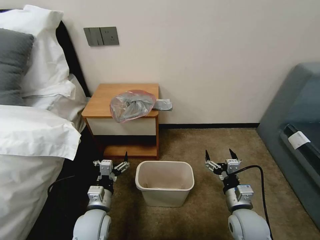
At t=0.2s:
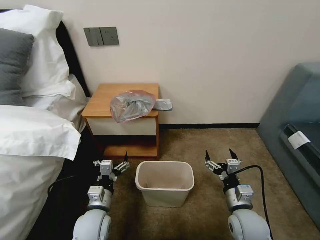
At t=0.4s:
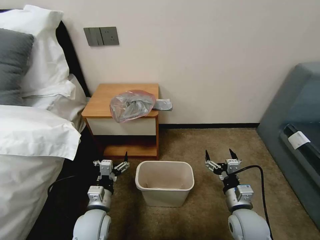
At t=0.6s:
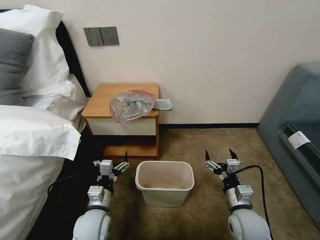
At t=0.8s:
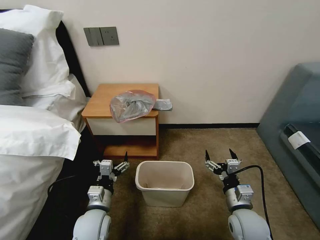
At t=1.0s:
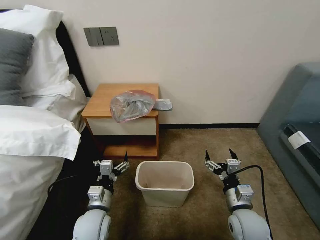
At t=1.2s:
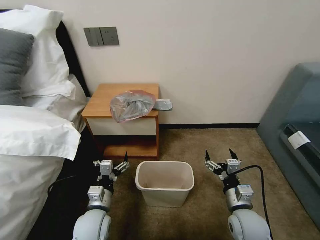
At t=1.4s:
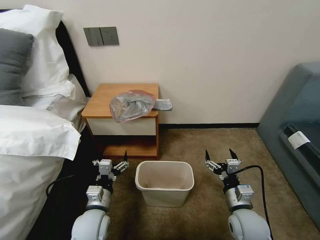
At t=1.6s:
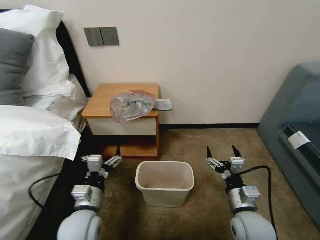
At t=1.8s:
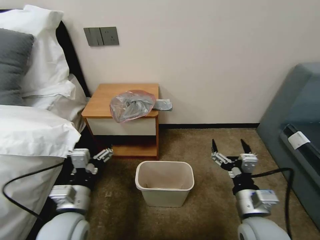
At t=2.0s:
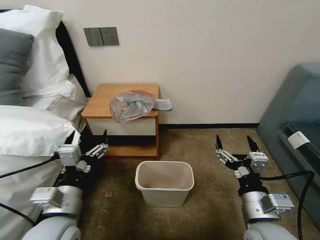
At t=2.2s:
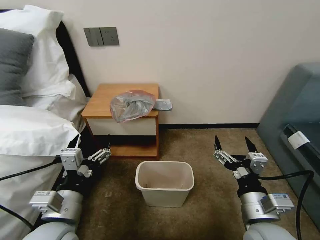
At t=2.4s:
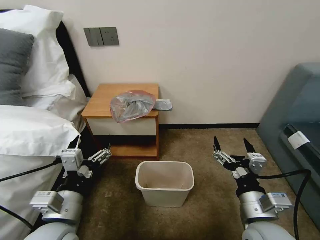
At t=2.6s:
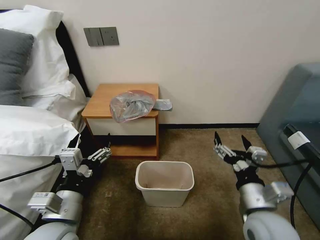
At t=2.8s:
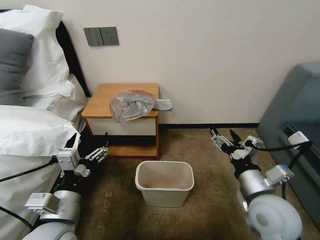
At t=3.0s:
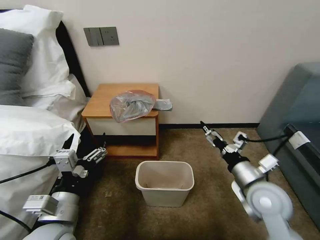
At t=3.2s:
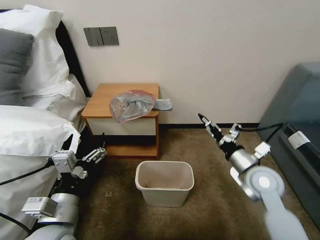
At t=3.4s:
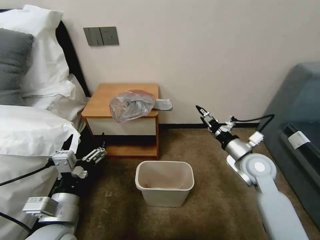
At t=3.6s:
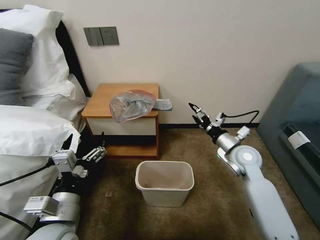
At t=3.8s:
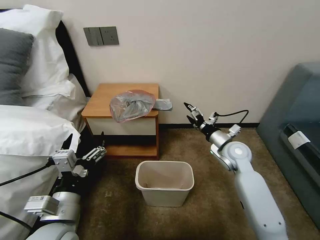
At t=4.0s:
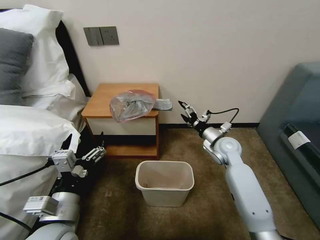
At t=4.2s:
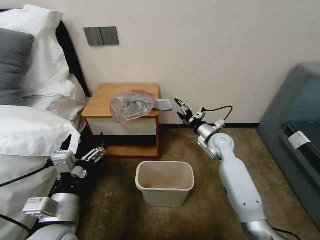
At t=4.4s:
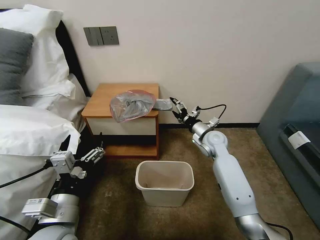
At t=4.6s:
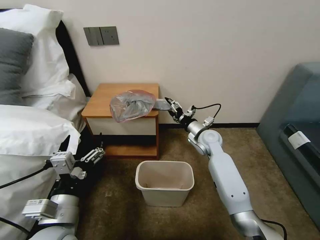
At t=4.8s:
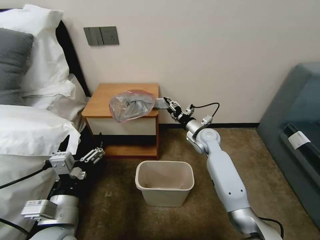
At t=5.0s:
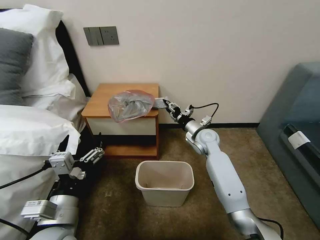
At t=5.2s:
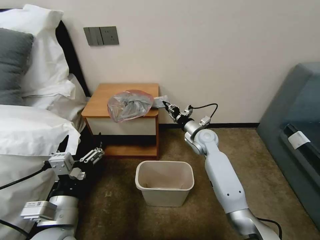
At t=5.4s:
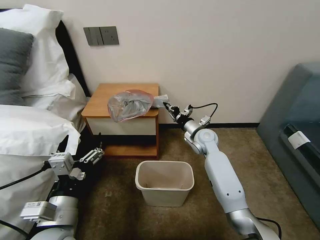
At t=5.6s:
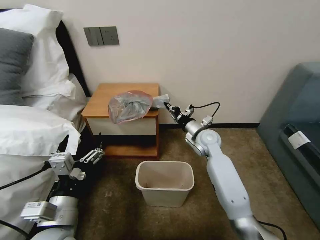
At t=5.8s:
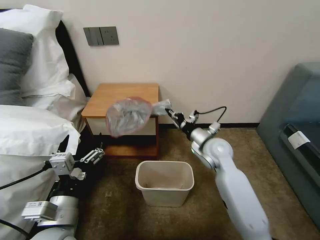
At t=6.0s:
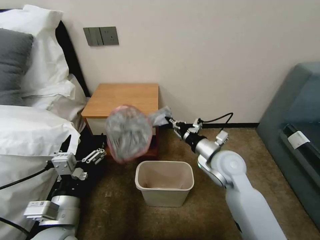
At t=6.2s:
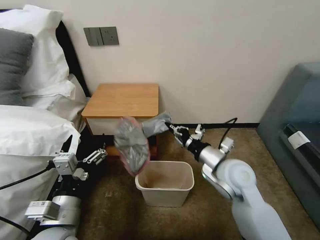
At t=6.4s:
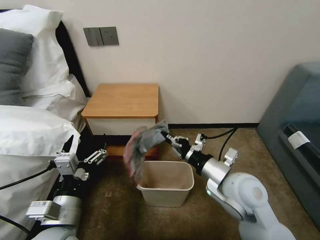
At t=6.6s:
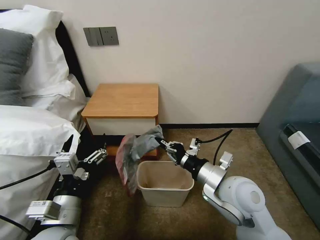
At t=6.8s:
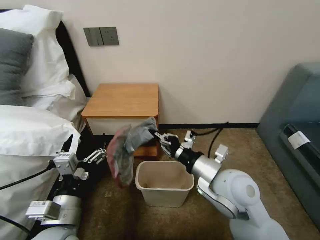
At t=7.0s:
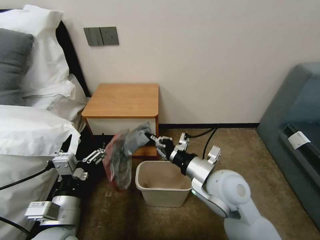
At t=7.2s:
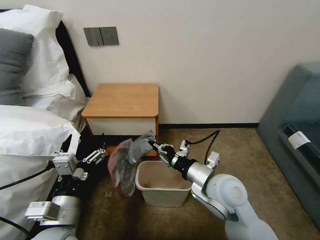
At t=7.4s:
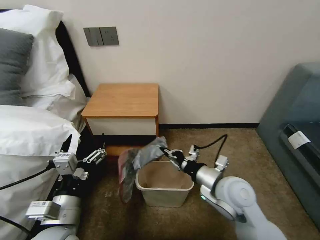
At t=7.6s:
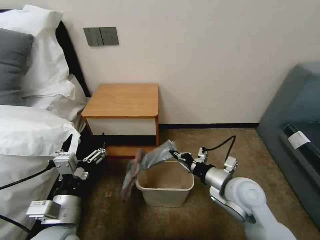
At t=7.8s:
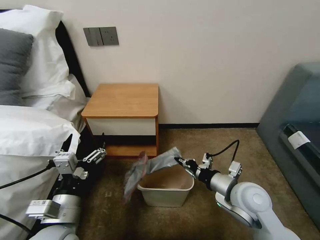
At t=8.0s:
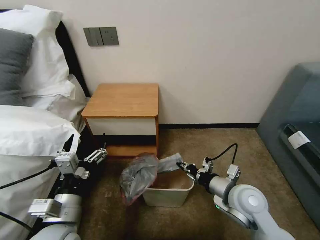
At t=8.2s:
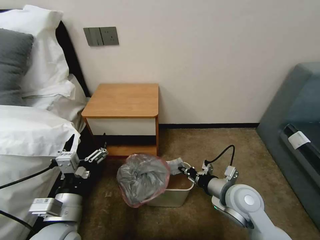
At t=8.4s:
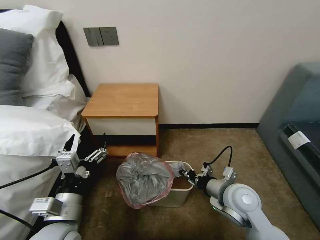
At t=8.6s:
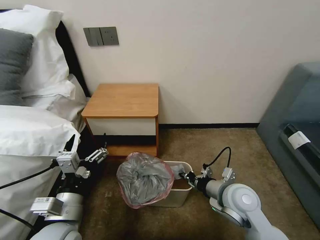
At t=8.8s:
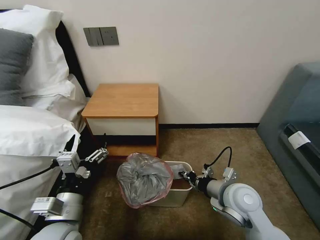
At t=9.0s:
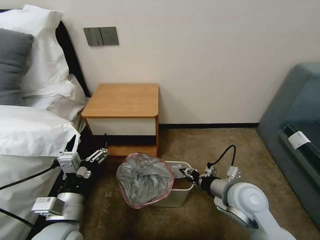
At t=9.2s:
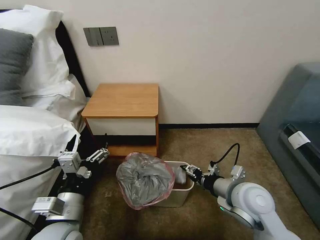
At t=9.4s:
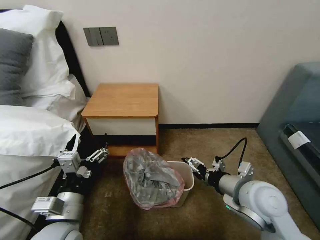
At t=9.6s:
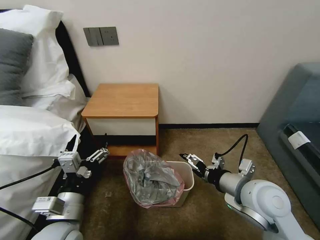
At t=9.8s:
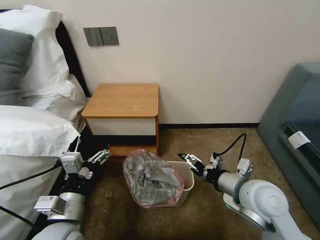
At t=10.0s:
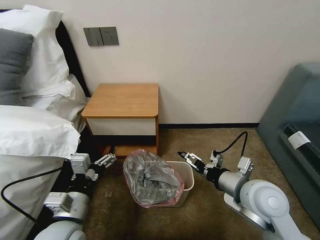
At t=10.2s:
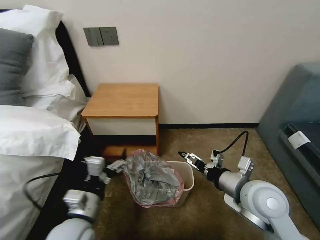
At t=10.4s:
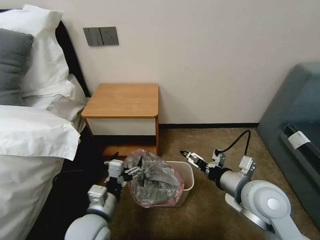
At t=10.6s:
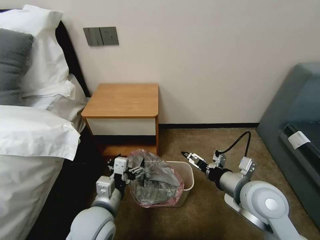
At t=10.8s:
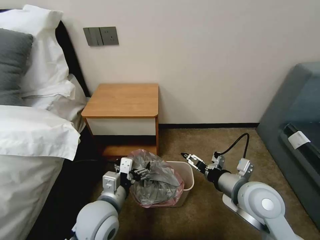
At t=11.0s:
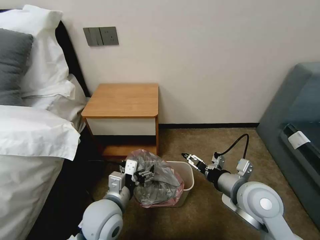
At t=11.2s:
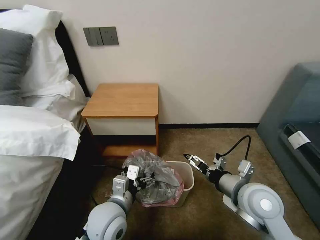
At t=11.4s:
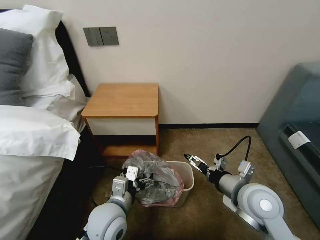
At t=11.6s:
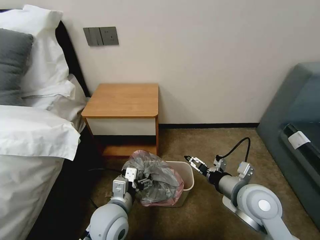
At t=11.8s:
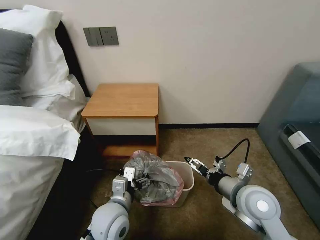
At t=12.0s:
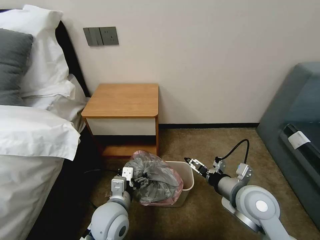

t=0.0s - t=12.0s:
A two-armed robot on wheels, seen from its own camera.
Task of the whole recording: Pick up the garbage bag from the table and place it over the trash can.
t=1.6s - t=3.0s: The right gripper shifts some 10 cm upward and forward. Meanwhile the left gripper shifts some 10 cm upward and backward.
t=3.0s - t=4.4s: The right gripper travels forward by about 20 cm.
t=4.4s - t=6.0s: The right gripper shifts approximately 15 cm backward and upward, and closes its fingers.
t=6.0s - t=7.6s: The right gripper travels backward by approximately 10 cm.
t=7.6s - t=9.0s: The right gripper opens up.
t=9.0s - t=10.4s: The right gripper travels upward by approximately 5 cm, and opens. Meanwhile the left gripper shifts by some 5 cm.
t=10.4s - t=12.0s: The left gripper moves roughly 5 cm.

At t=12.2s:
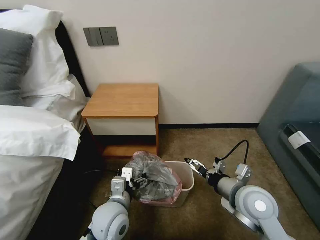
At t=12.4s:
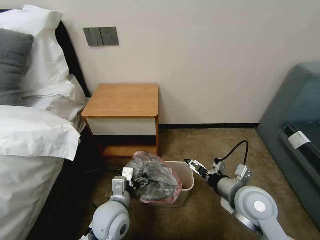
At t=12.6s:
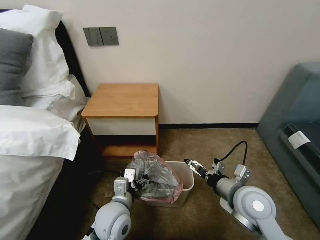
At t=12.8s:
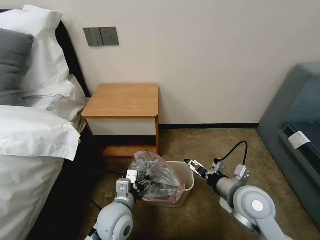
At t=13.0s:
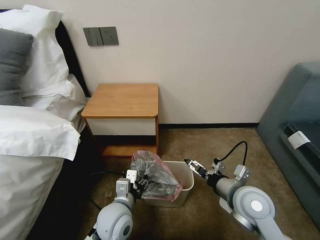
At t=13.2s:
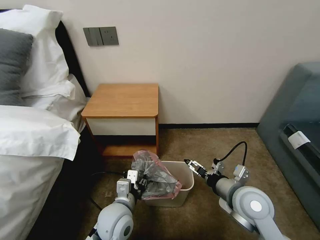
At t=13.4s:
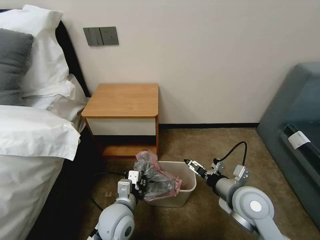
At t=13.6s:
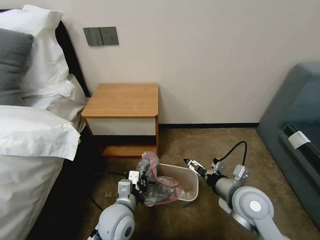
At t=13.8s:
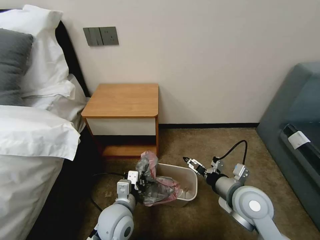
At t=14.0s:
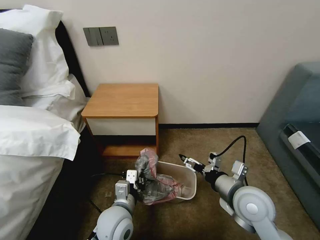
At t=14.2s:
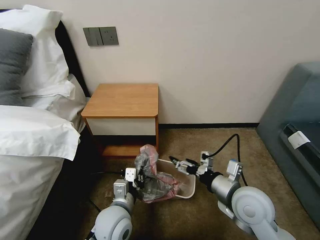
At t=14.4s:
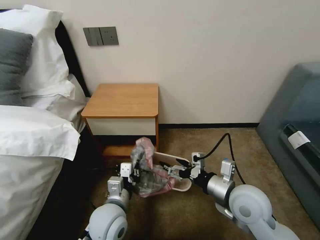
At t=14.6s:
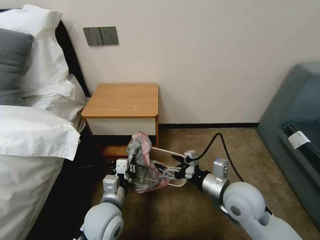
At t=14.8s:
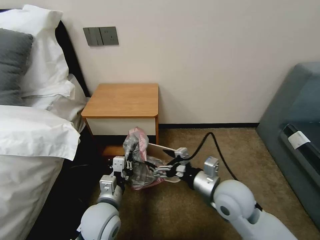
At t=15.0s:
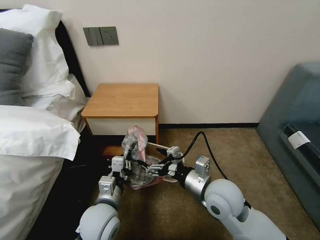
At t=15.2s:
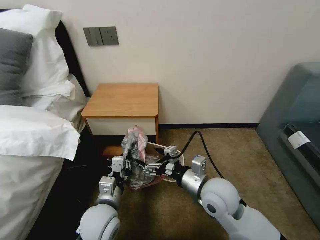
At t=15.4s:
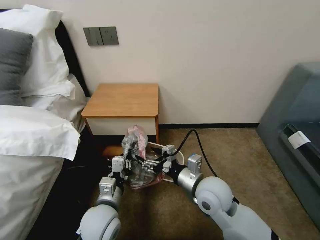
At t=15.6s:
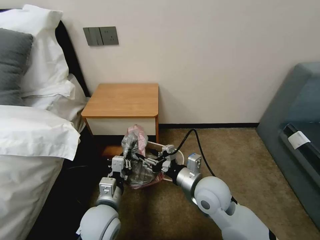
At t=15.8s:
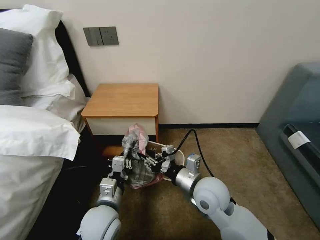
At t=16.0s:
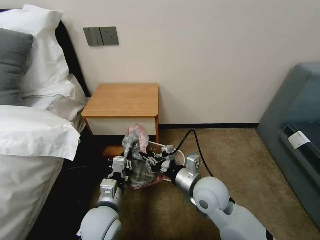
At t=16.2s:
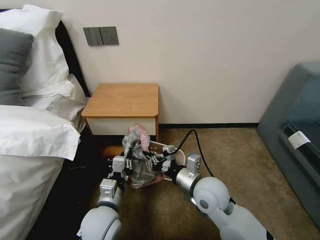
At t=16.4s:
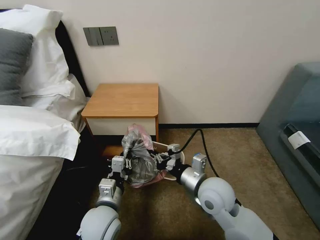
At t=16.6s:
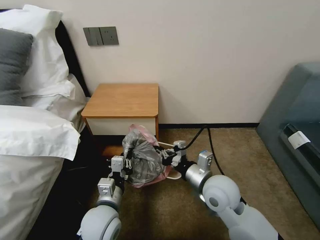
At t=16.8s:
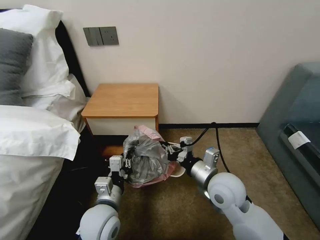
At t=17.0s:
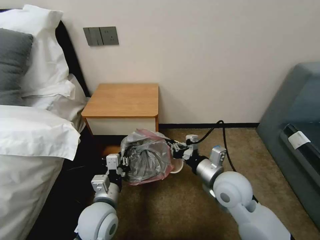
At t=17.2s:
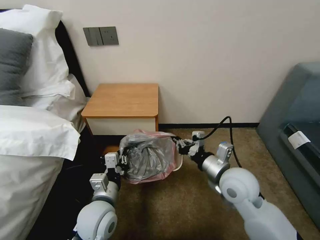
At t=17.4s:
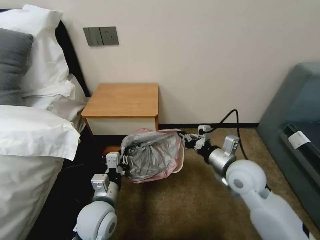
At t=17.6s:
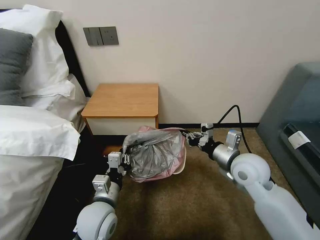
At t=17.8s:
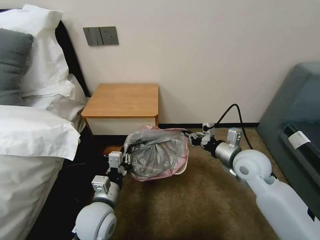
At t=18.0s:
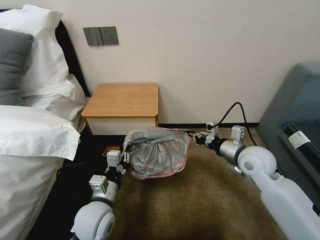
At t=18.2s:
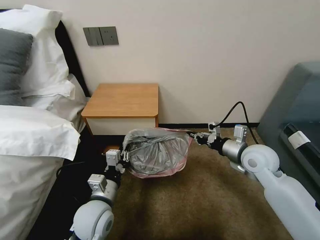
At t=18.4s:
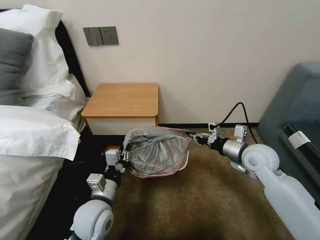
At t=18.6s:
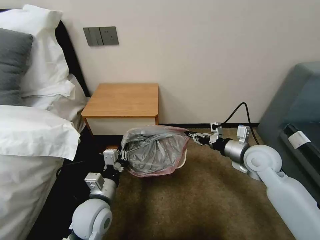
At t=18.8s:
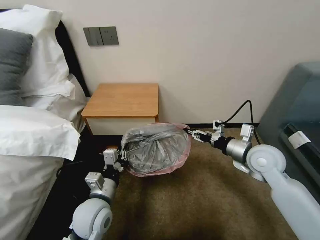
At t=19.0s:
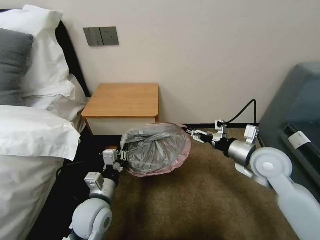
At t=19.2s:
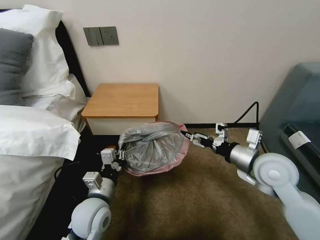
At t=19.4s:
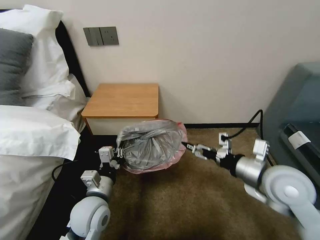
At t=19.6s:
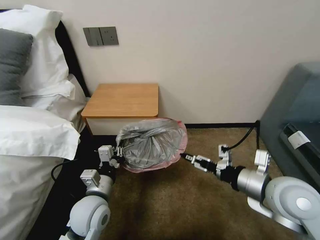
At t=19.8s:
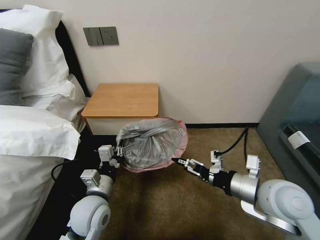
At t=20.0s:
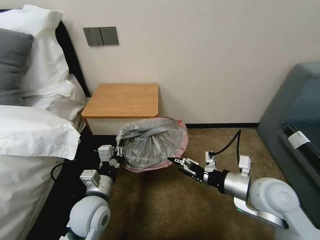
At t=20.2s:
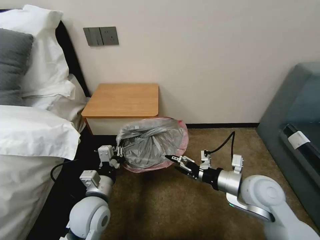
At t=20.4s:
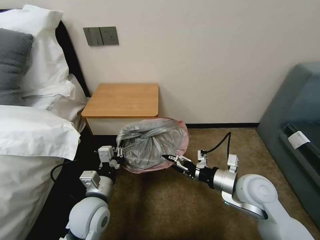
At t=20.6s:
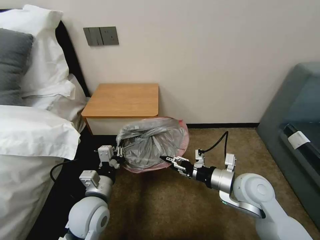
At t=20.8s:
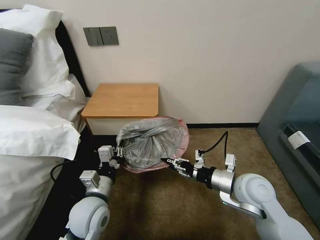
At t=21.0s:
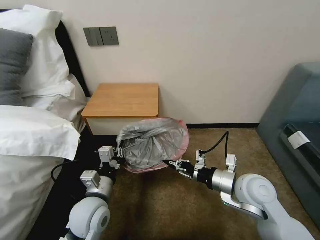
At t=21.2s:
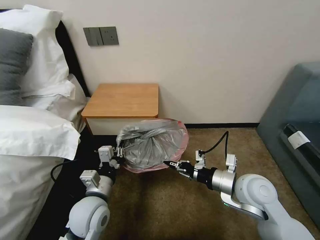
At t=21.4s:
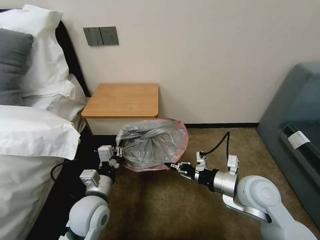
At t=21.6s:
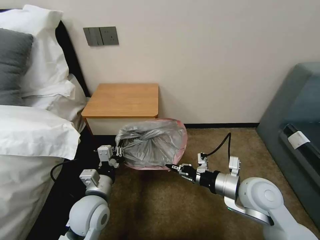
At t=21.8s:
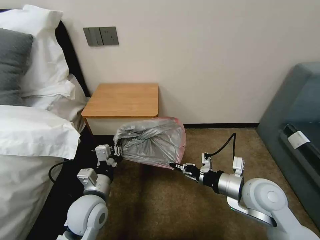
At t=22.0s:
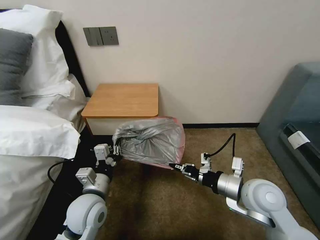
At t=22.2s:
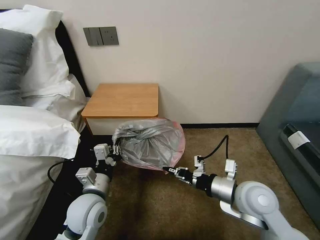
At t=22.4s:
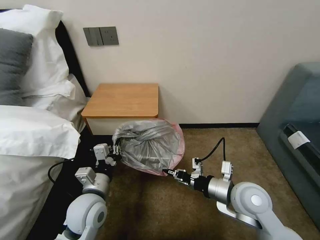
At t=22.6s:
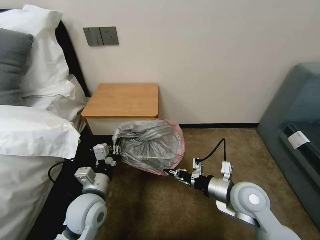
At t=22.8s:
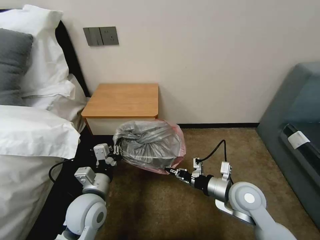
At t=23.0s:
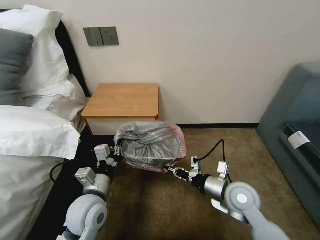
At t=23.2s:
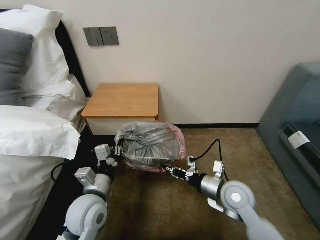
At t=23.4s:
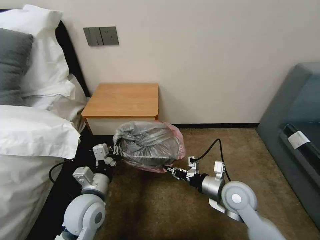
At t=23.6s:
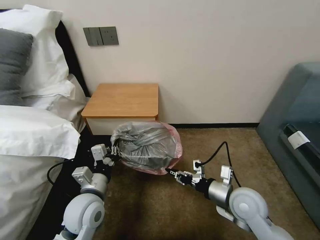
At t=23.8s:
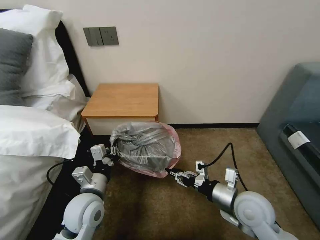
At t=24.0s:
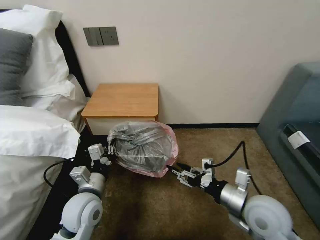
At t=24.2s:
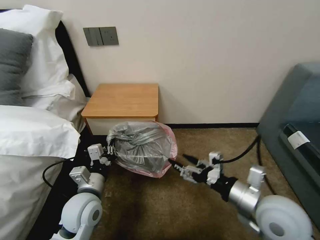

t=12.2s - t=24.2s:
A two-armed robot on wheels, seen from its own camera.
Task of the whole recording: Pick up the garbage bag from the table and place it over the trash can.
t=12.2s - t=13.8s: The left gripper closes its fingers.
t=13.8s - t=15.2s: The right gripper heads to the left, covering approximately 10 cm.
t=15.2s - t=16.6s: The right gripper closes its fingers.
t=16.6s - t=18.2s: The right gripper shifts about 15 cm to the right and forward.
t=18.2s - t=19.8s: The right gripper is displaced backward by about 15 cm, and opens up.
t=19.8s - t=21.2s: The right gripper moves some 5 cm, and closes its fingers.
t=21.2s - t=22.6s: The grippers stay close to where they were, moving slightly.
t=22.6s - t=24.2s: The right gripper shifts about 10 cm upward and backward, and opens.
